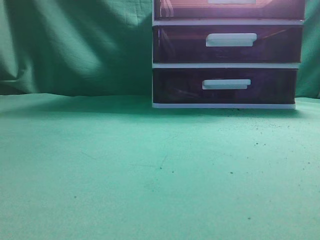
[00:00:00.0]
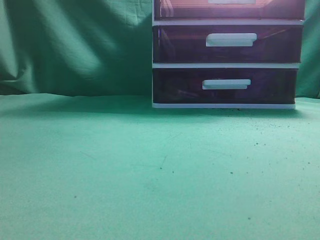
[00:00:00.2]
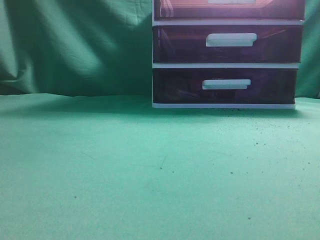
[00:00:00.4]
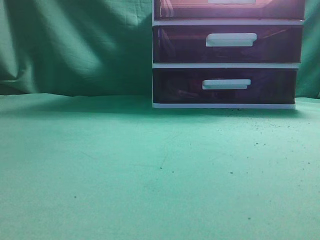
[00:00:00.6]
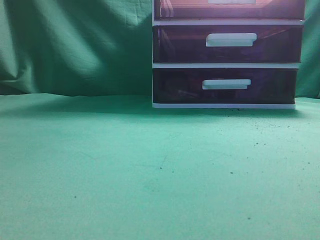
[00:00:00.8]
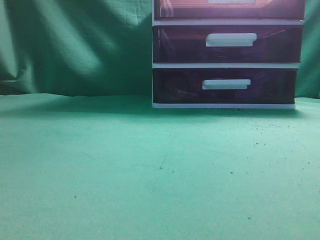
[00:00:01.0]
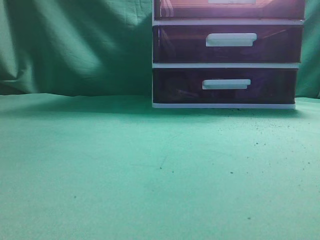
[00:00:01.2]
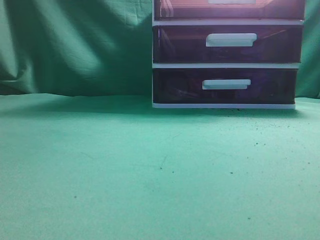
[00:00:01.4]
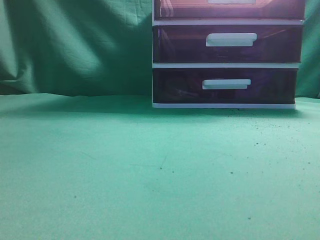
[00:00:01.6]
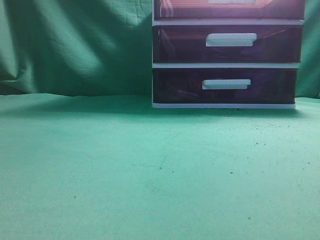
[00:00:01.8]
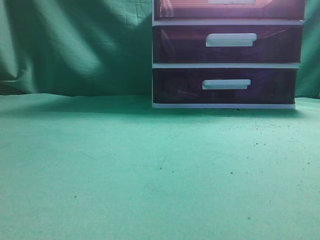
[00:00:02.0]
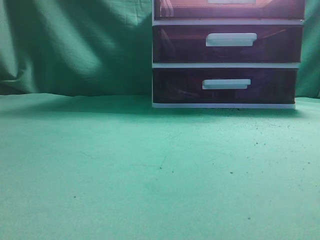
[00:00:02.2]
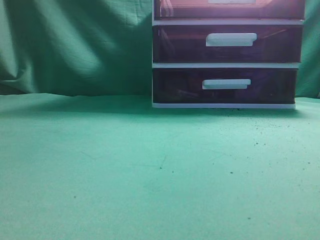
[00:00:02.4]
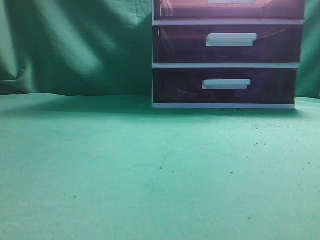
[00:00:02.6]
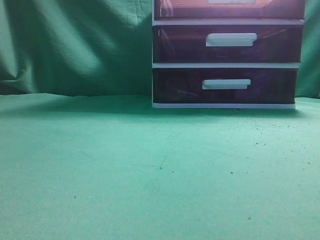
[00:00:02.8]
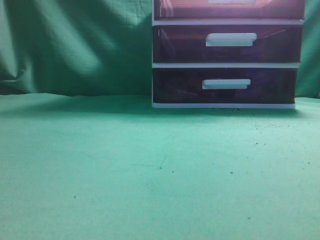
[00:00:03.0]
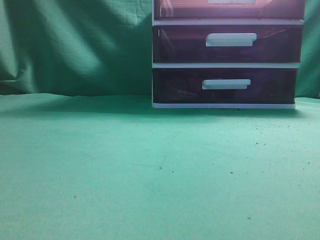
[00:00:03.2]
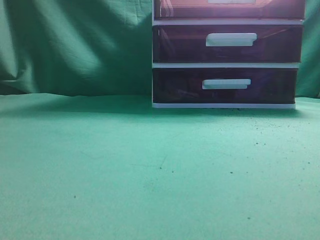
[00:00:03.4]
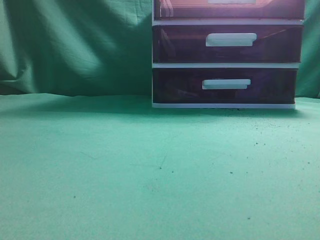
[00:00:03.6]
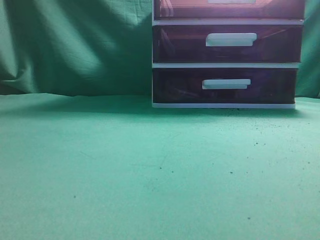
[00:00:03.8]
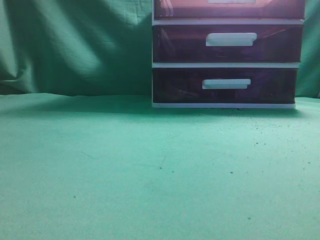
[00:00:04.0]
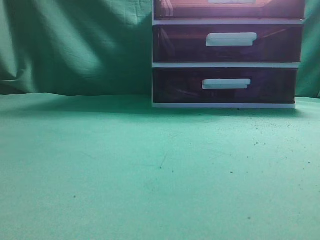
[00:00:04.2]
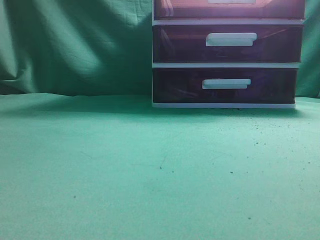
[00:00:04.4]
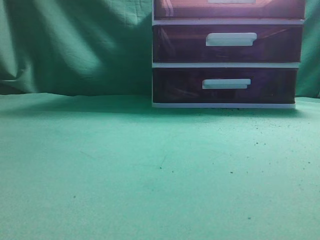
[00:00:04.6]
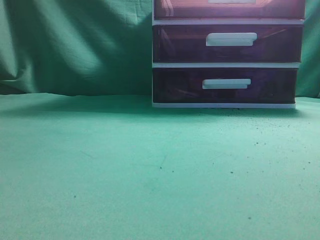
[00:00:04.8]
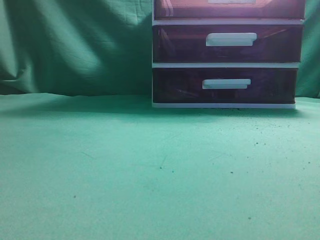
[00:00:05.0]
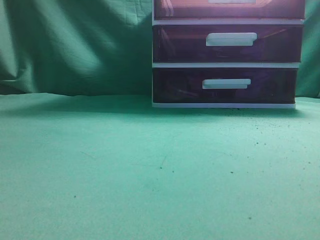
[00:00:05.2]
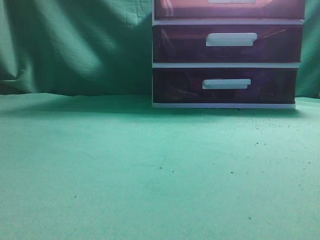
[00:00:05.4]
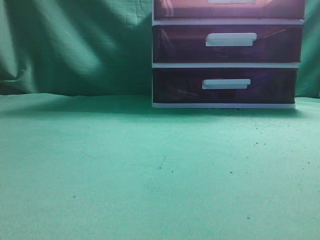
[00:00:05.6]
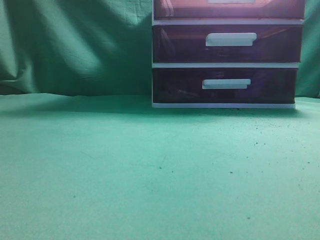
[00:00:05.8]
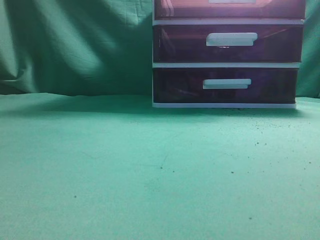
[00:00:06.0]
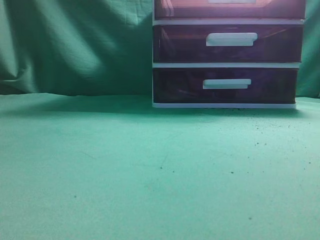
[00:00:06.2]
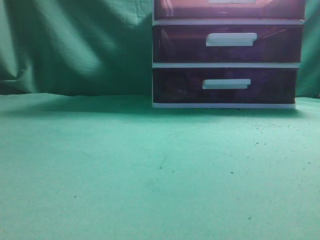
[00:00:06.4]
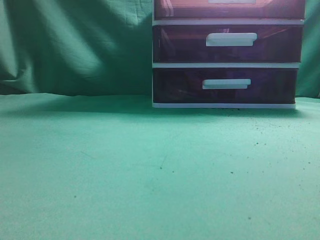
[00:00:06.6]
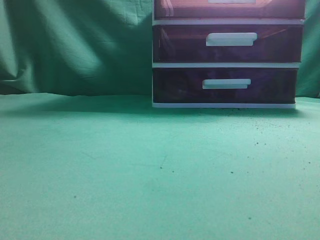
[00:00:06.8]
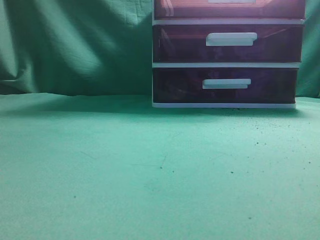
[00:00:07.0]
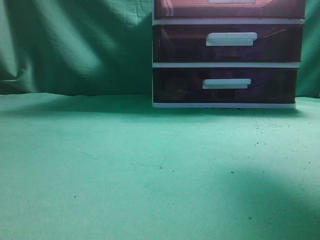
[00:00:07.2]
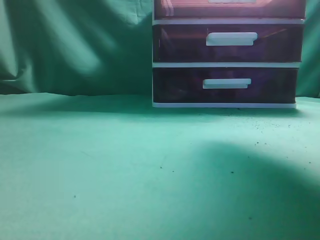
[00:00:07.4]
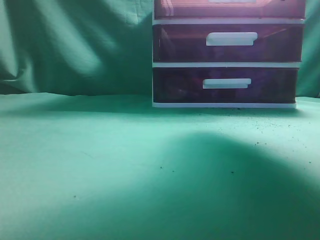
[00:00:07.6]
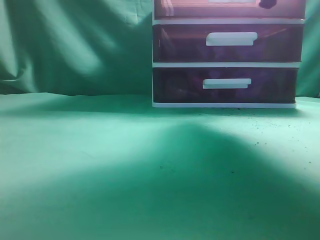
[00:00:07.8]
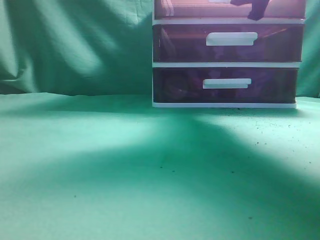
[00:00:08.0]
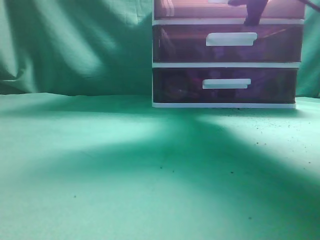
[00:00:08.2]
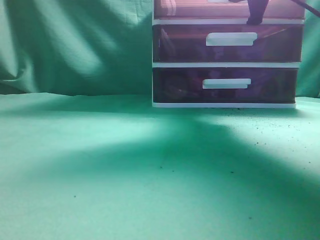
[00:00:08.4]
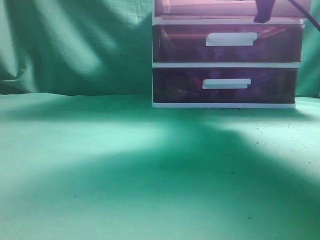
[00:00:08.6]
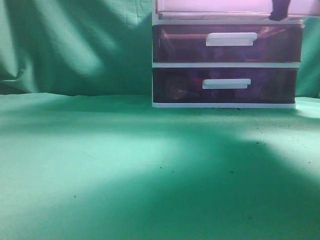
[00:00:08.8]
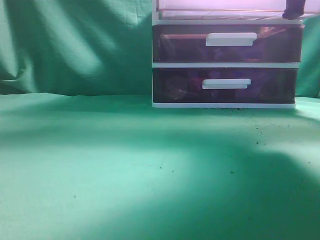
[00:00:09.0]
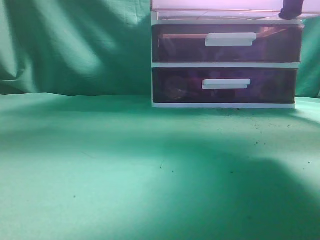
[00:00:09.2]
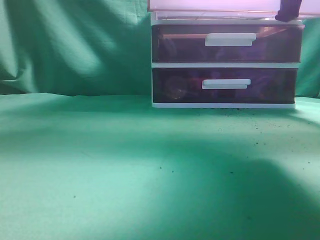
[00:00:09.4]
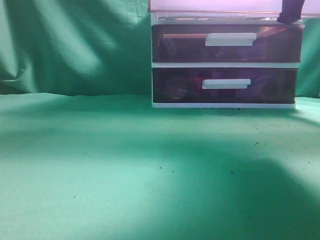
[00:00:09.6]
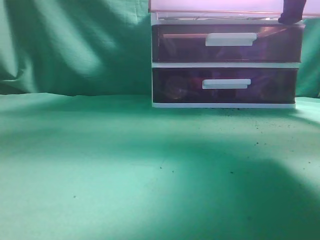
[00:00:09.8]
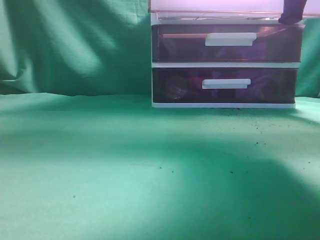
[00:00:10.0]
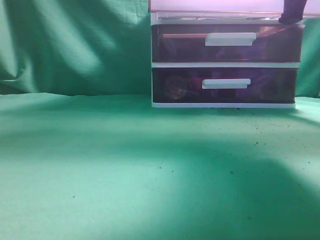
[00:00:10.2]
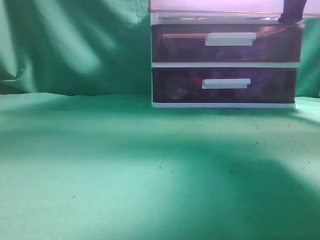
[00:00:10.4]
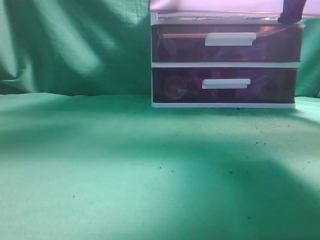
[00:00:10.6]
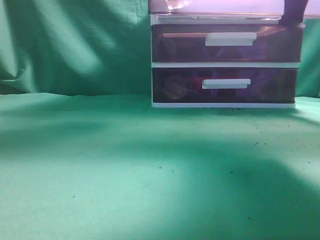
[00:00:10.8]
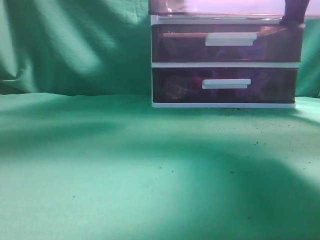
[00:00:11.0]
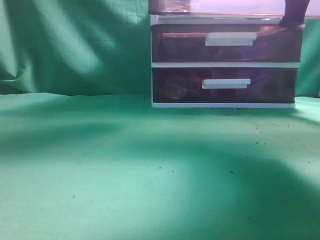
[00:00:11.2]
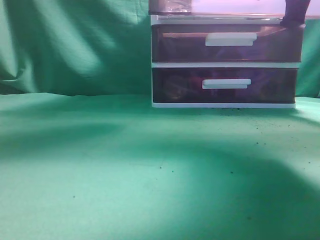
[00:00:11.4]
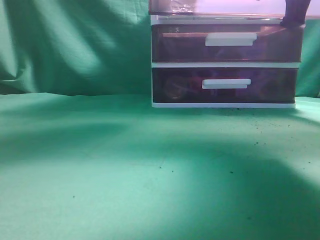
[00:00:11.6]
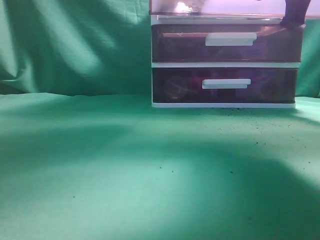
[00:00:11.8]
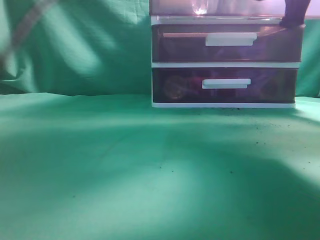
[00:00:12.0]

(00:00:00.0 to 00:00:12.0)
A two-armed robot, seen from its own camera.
Task of the whole recording: place the water bottle into the drawer.
Step, 00:00:00.0 - 00:00:09.8: Open the drawer.
00:00:06.0 - 00:00:07.6: The right gripper goes approximately 30 cm forward, and opens.
00:00:07.6 - 00:00:09.0: The right gripper moves about 5 cm forward and comes back, and closes up.
00:00:09.0 - 00:00:10.4: The left gripper goes roughly 20 cm forward and to the right.
00:00:10.4 - 00:00:12.0: The left gripper heads to the right, forward and downward, covering some 15 cm.

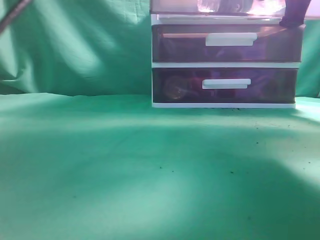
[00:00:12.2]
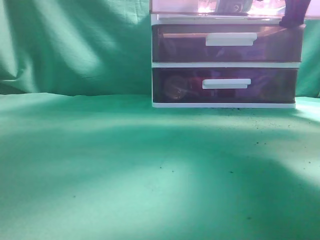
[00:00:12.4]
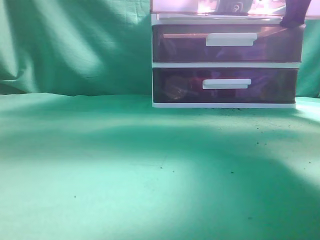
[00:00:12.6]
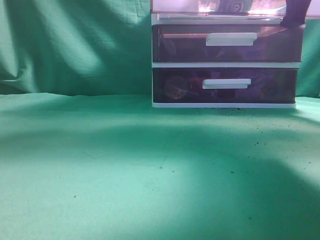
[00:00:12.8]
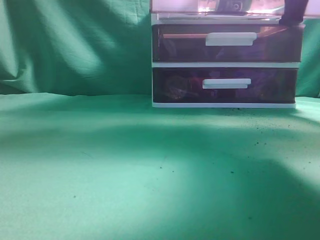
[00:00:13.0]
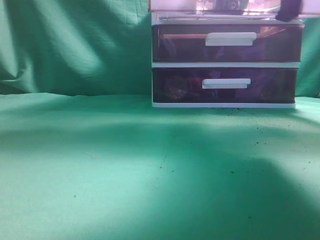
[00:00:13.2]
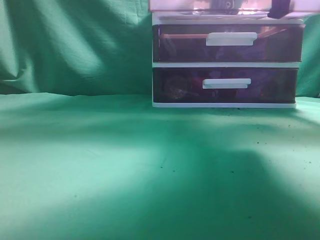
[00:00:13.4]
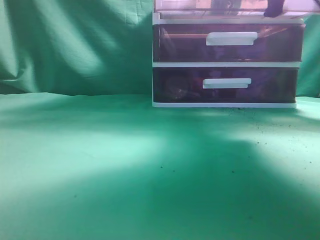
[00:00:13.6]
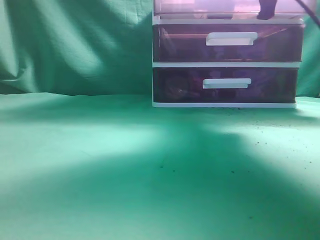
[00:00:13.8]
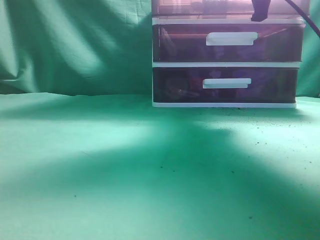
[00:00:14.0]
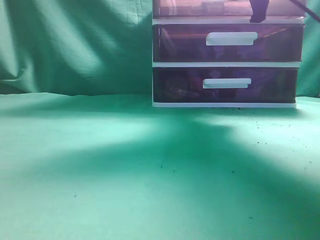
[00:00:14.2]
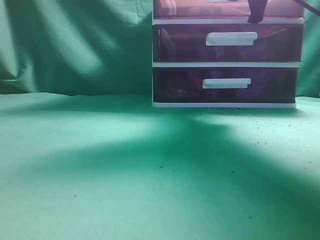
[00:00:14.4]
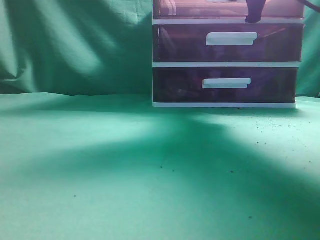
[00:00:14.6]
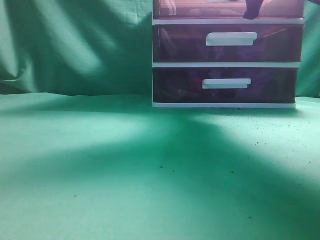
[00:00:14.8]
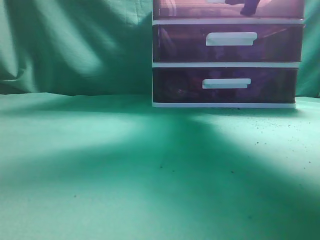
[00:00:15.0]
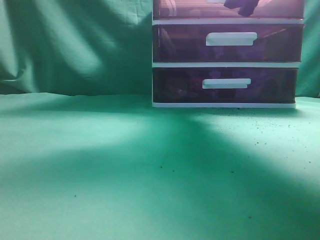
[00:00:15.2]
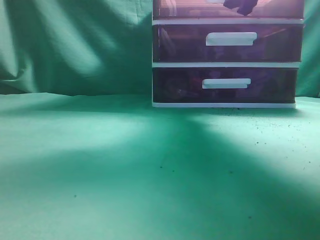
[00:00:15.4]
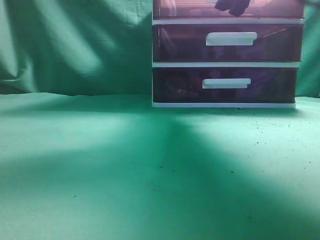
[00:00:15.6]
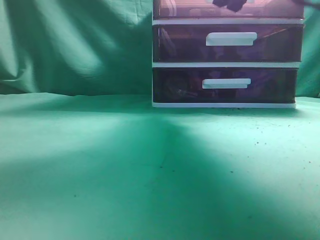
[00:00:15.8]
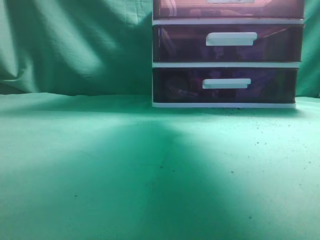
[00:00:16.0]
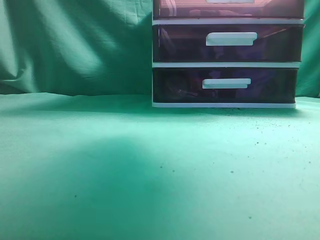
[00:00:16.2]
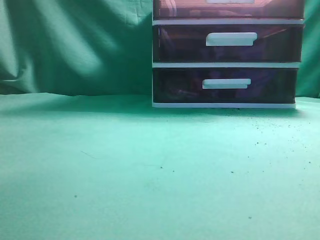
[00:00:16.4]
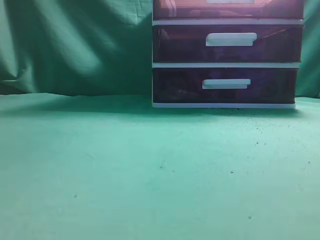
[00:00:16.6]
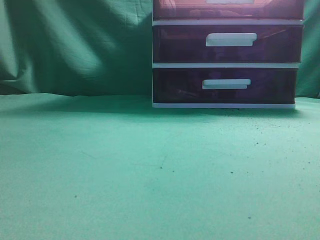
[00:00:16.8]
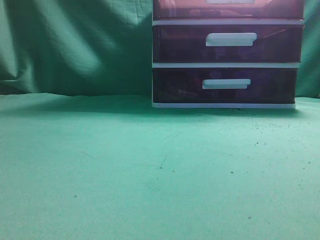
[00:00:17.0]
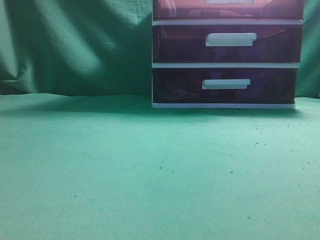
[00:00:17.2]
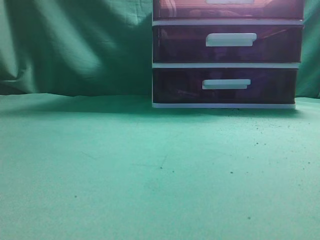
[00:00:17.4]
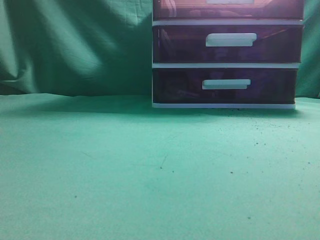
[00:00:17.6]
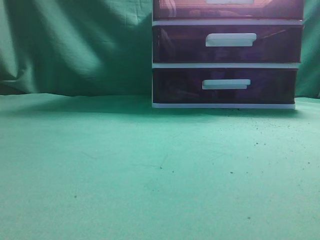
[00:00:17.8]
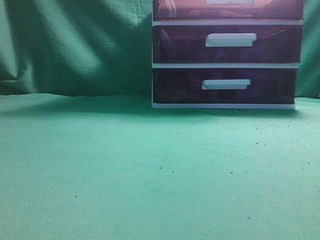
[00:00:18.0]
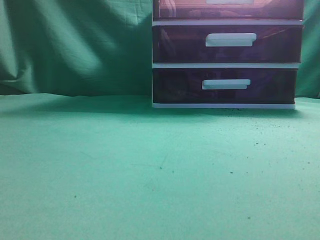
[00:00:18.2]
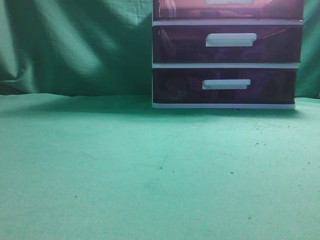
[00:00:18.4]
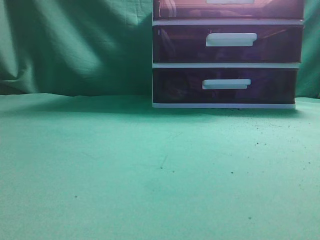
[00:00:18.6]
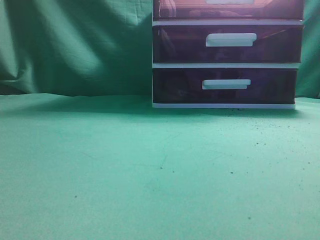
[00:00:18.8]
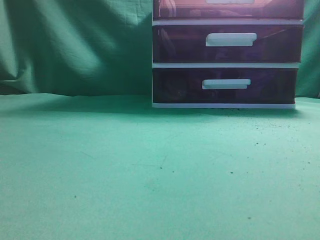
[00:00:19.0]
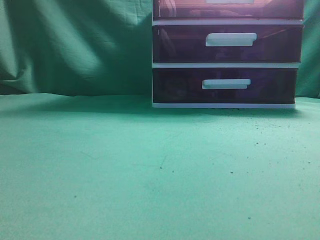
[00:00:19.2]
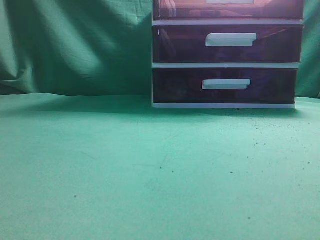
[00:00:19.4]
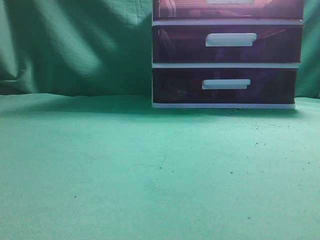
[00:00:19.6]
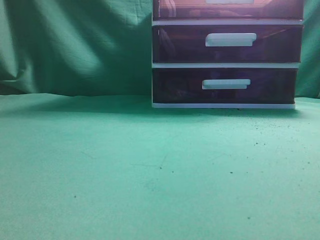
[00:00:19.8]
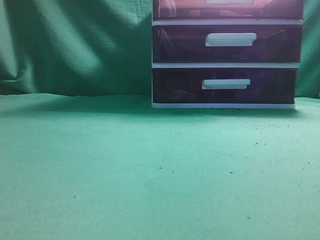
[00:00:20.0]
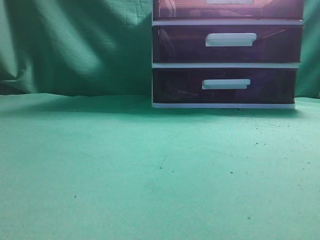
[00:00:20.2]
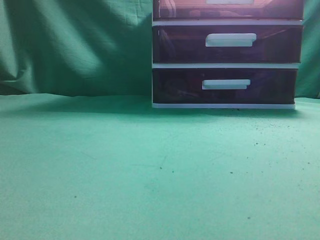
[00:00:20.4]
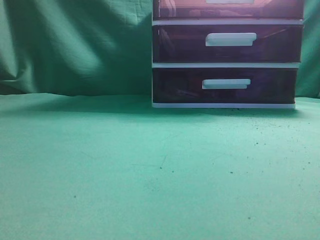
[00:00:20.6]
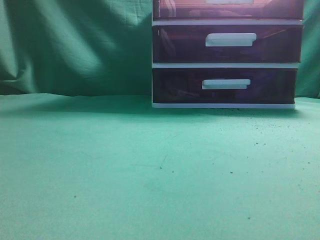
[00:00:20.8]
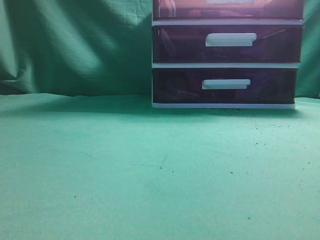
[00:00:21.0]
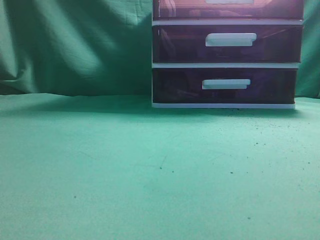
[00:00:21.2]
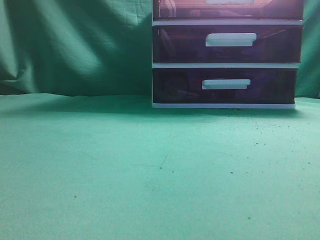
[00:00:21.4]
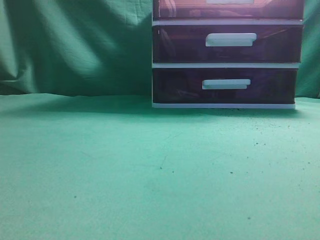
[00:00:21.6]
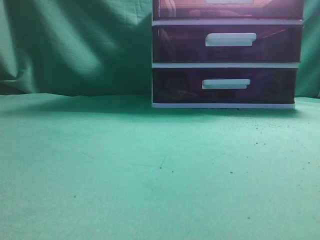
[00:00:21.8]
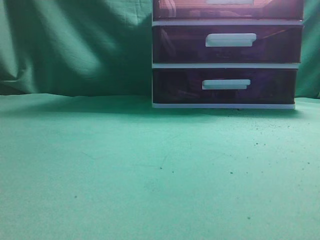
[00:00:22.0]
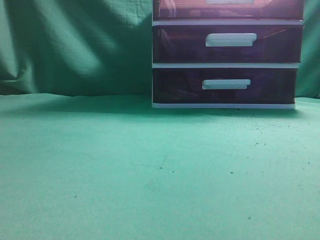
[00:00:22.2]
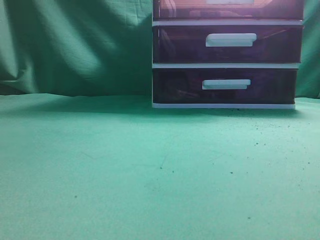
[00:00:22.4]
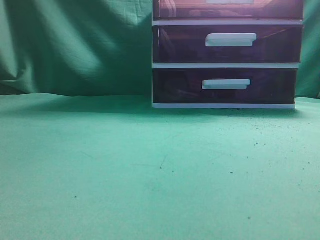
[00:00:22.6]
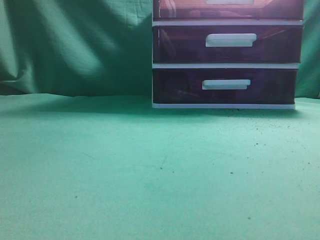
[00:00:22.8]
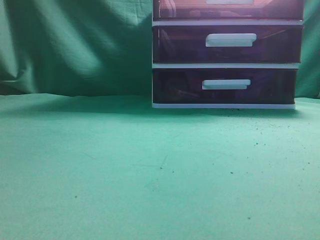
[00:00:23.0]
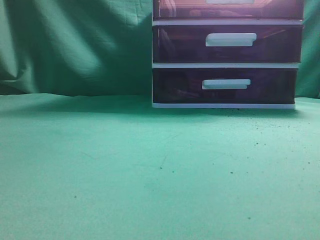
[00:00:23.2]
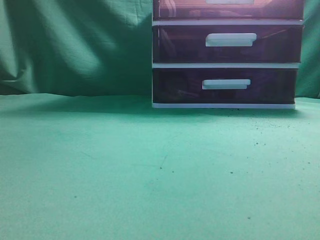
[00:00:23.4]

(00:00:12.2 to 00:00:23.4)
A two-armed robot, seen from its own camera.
Task of the whole recording: place the water bottle into the drawer.
Step, 00:00:12.4 - 00:00:15.8: Close the drawer.
00:00:12.2 - 00:00:13.8: The left gripper moves to the left and upward, approximately 20 cm, and closes up. The right gripper travels forward by some 10 cm.
00:00:13.8 - 00:00:15.4: The right gripper opens its fingers.
00:00:15.4 - 00:00:17.0: The two grippers go approximately 25 cm backward and upward. The right gripper closes up.
